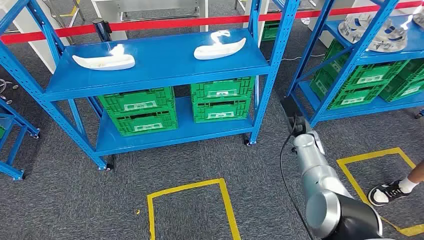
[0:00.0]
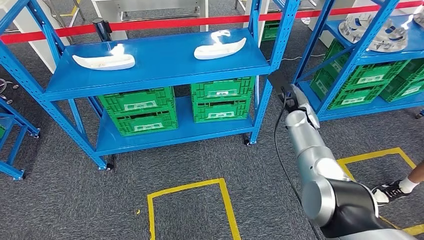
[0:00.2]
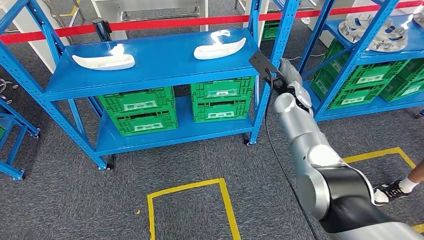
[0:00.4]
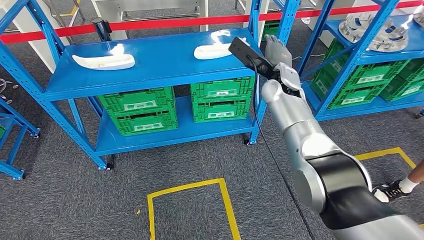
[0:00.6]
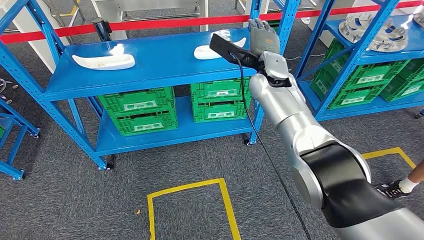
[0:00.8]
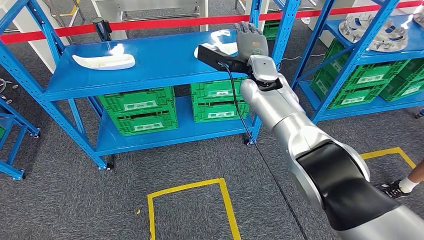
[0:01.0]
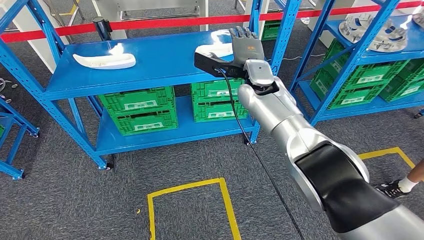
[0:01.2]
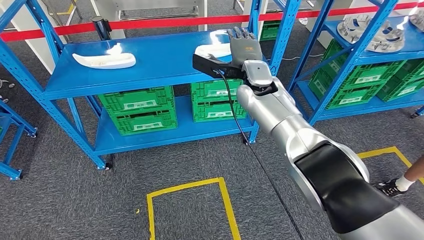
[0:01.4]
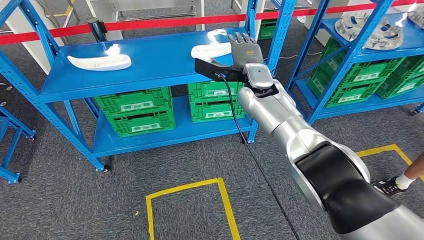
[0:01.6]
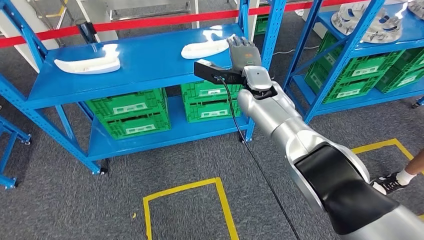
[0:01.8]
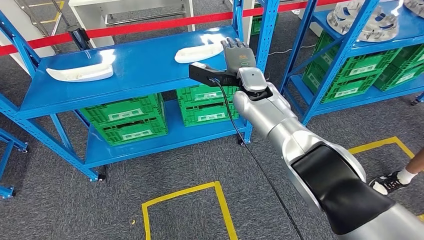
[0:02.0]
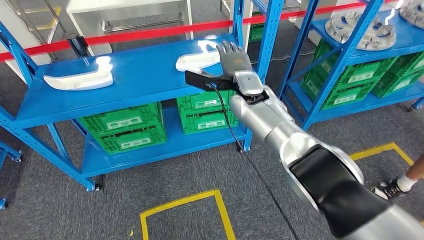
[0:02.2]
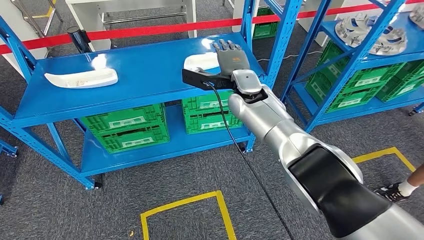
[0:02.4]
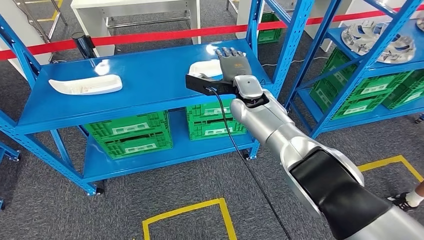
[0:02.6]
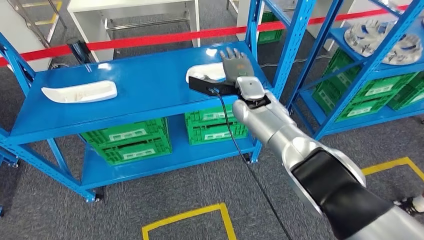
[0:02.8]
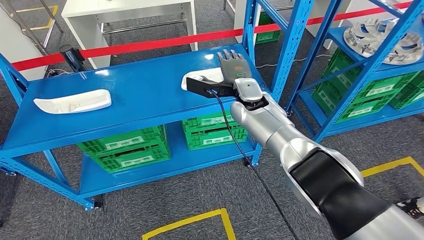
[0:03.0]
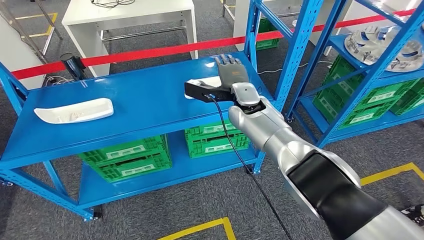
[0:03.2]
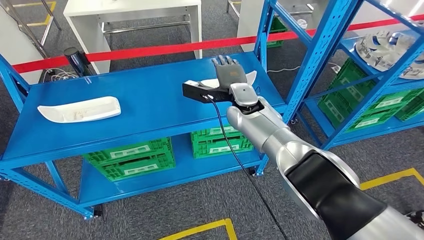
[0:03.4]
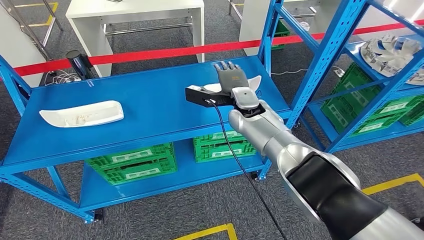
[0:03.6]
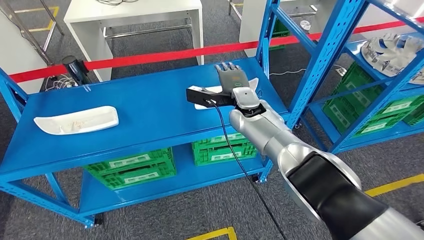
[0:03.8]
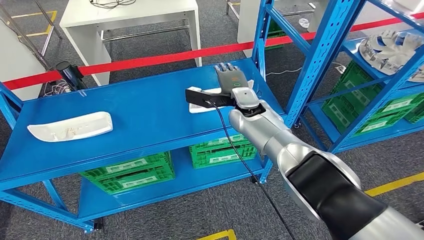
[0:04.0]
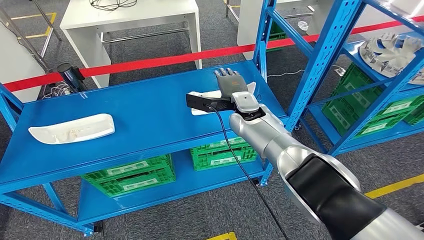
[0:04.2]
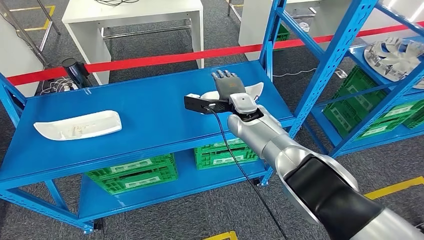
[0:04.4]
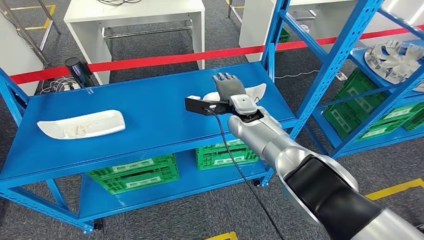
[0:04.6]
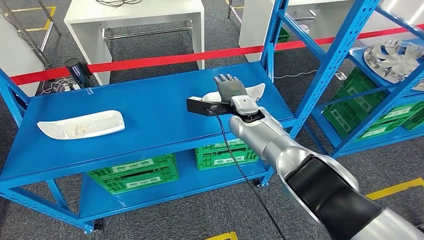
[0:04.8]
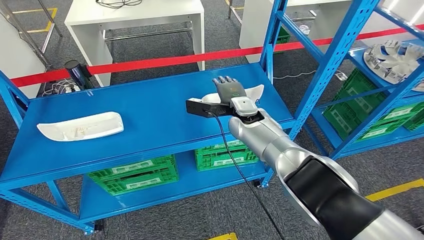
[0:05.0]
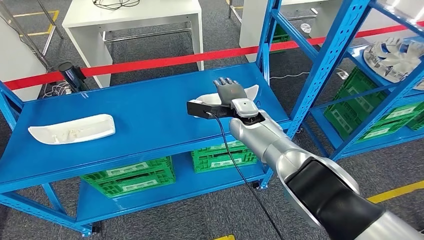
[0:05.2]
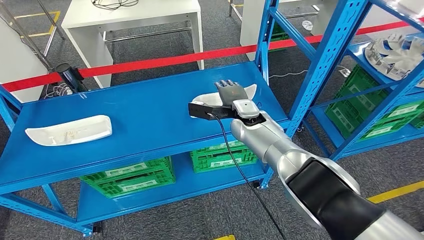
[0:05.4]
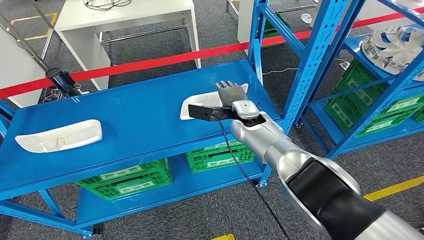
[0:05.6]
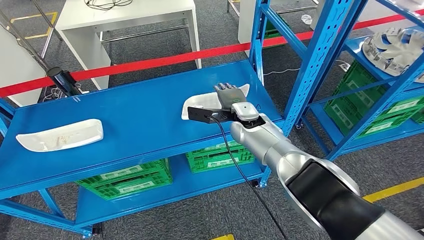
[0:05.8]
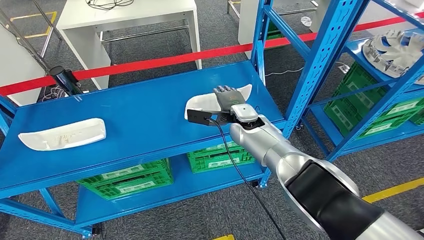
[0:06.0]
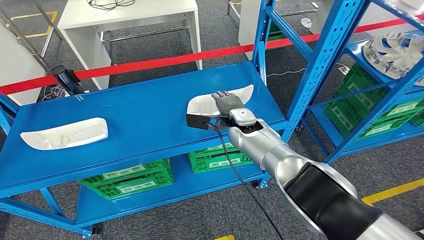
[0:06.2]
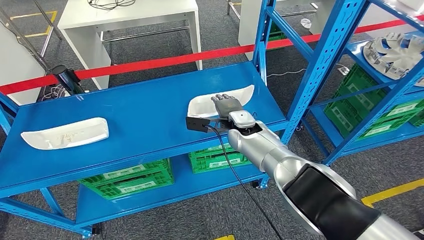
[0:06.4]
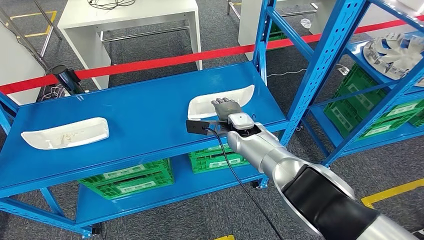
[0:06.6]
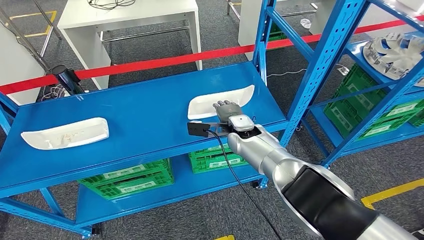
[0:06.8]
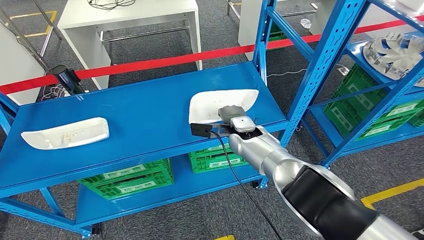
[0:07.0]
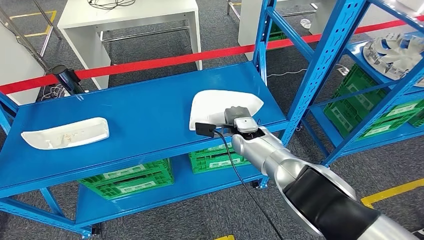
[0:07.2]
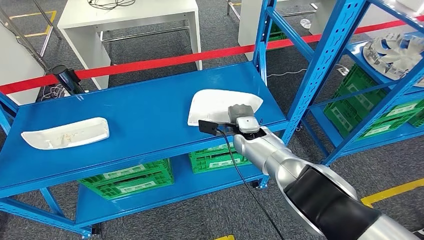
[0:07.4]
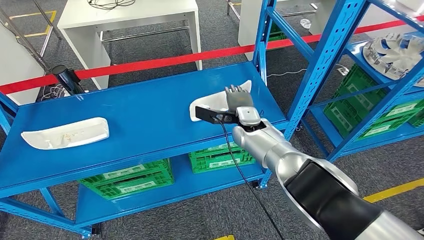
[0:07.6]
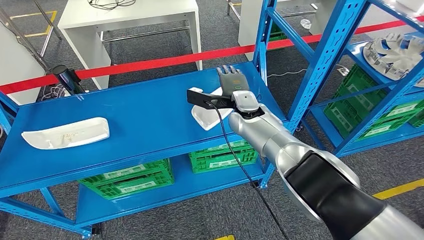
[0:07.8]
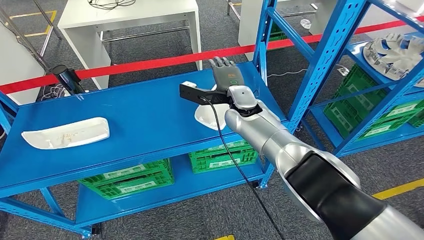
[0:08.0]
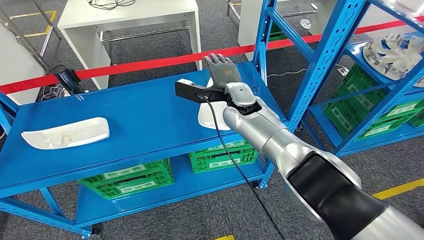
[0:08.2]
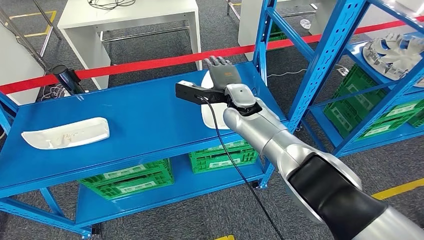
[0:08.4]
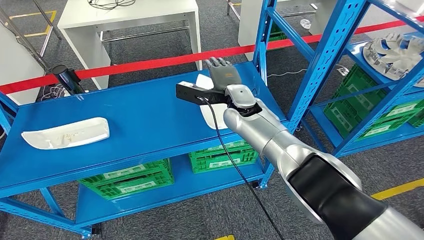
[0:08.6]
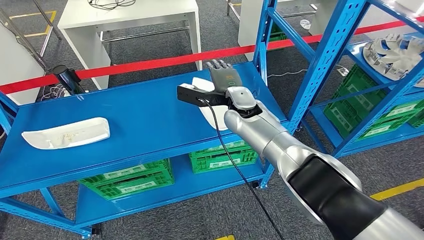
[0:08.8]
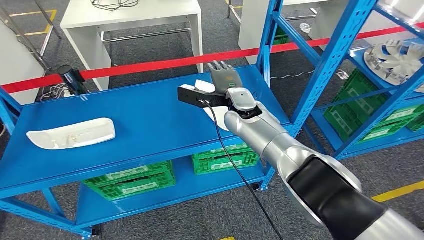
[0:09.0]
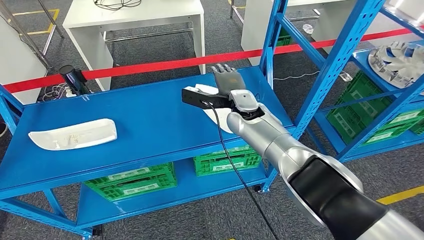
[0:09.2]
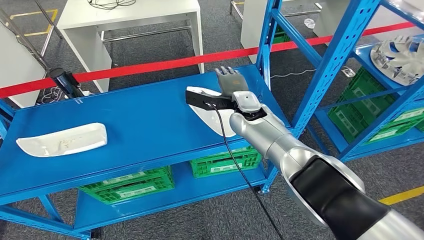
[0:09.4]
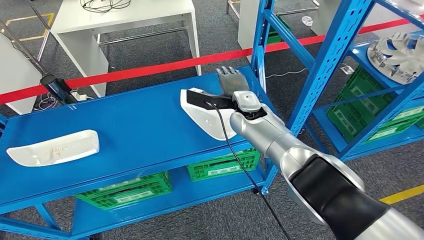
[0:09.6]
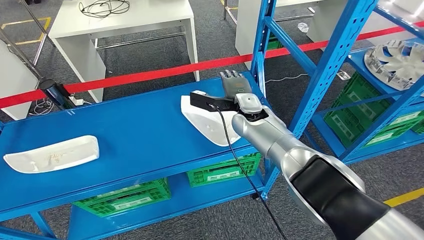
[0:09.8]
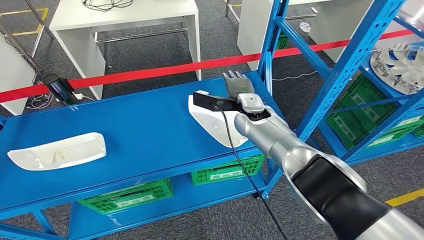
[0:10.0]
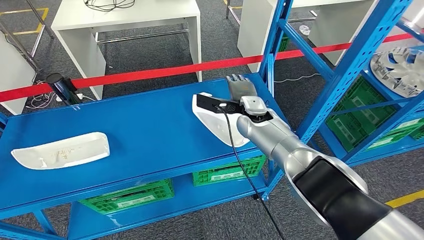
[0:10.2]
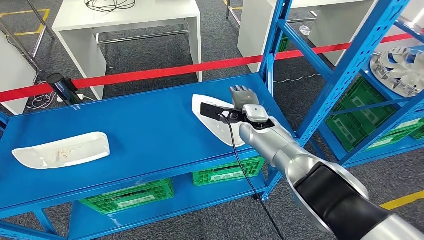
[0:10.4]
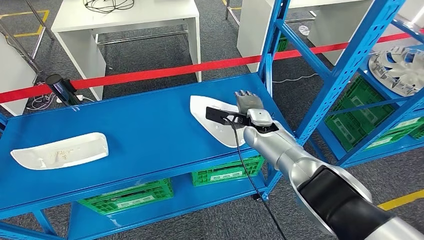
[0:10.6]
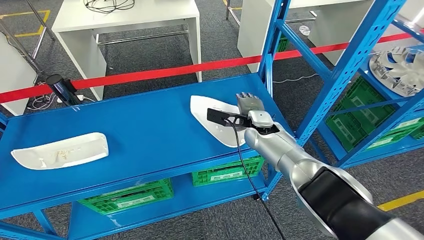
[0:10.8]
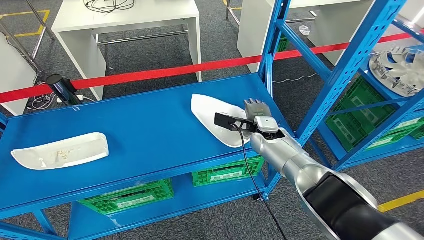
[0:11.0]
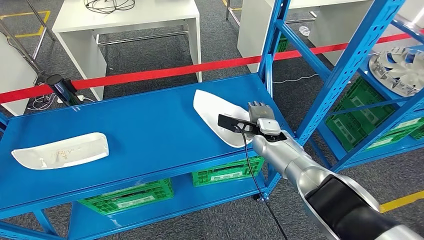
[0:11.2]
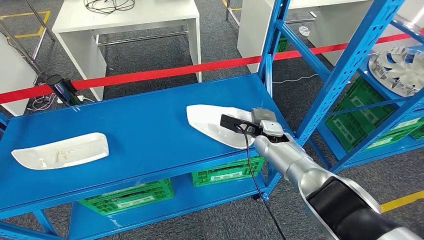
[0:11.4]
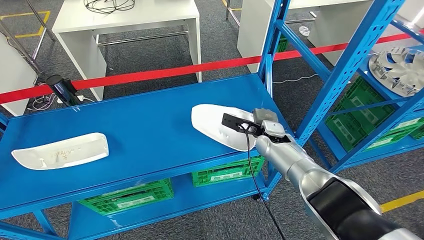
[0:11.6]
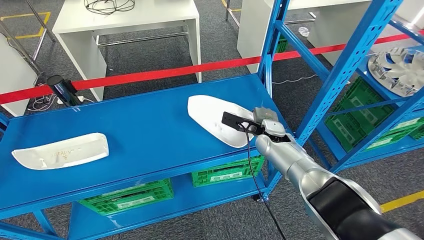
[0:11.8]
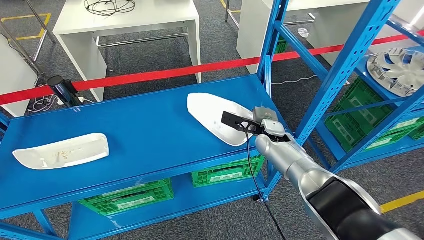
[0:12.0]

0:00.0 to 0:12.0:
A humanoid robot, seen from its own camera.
0:06.0 to 0:07.6: The hands make only small movements.

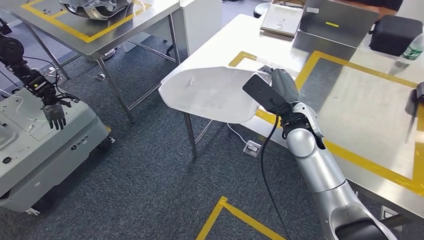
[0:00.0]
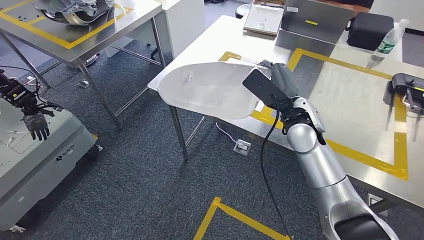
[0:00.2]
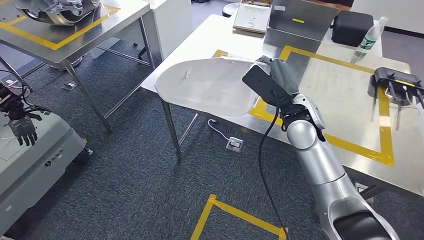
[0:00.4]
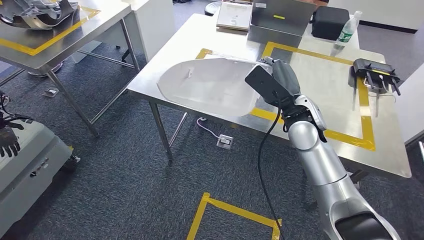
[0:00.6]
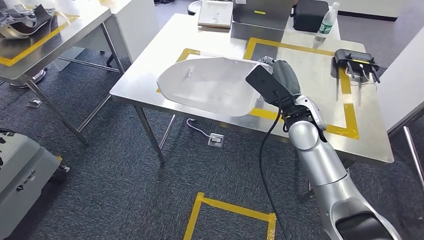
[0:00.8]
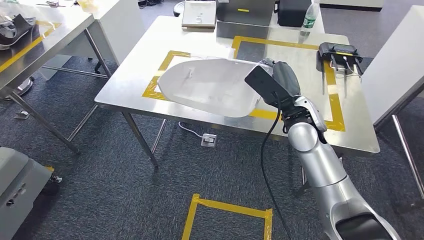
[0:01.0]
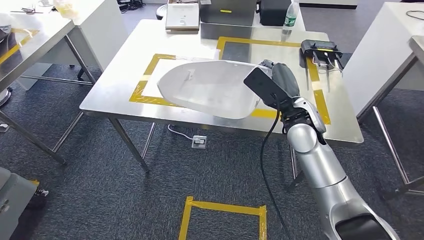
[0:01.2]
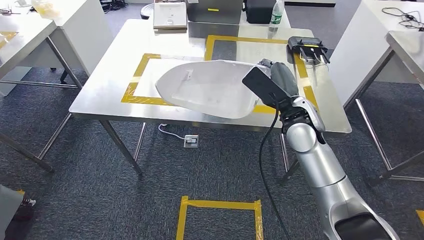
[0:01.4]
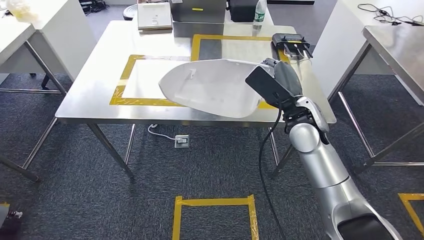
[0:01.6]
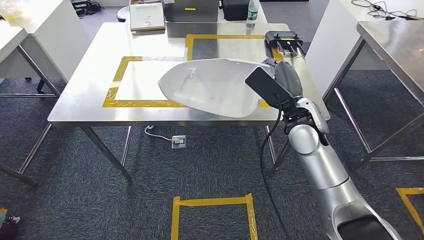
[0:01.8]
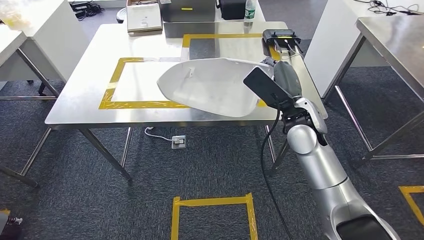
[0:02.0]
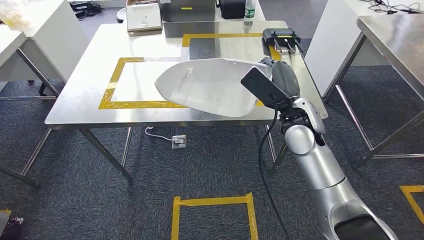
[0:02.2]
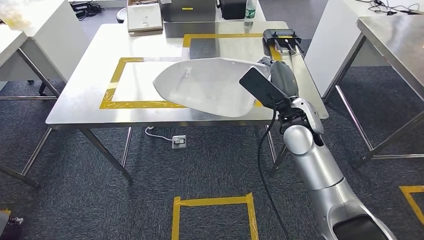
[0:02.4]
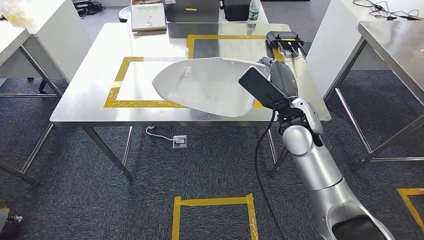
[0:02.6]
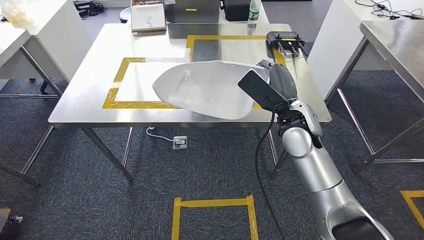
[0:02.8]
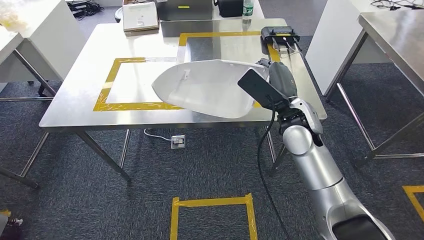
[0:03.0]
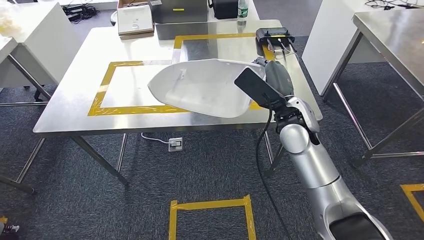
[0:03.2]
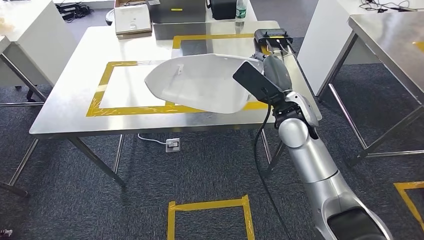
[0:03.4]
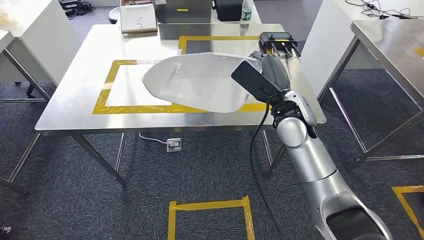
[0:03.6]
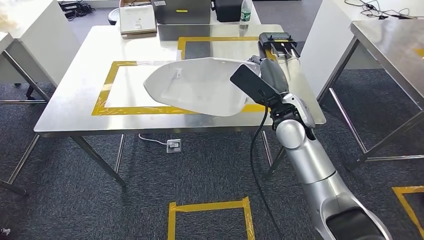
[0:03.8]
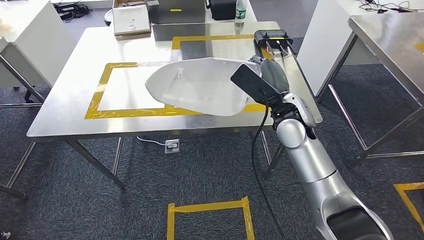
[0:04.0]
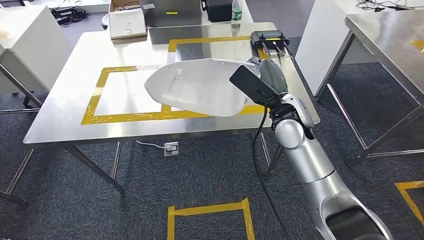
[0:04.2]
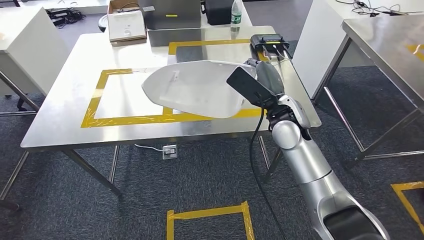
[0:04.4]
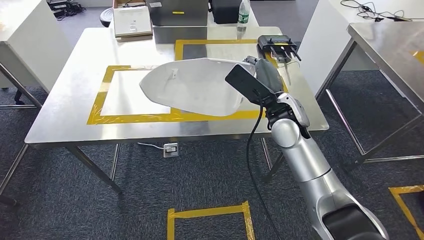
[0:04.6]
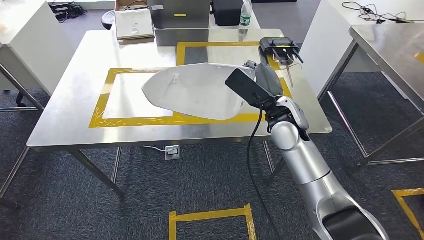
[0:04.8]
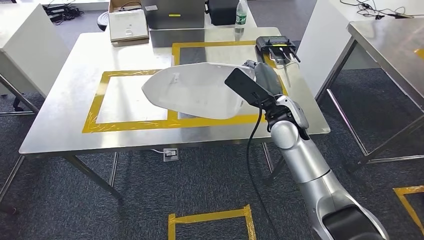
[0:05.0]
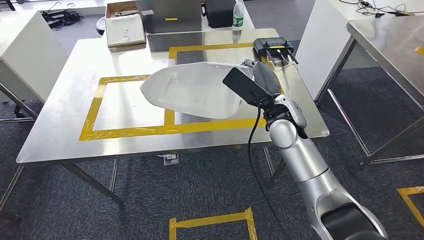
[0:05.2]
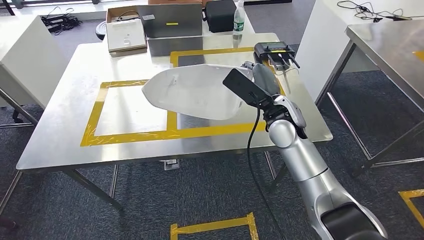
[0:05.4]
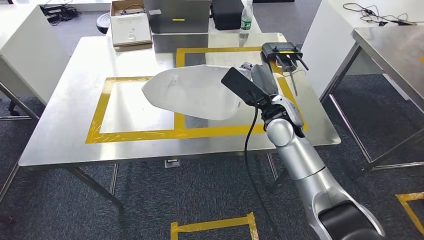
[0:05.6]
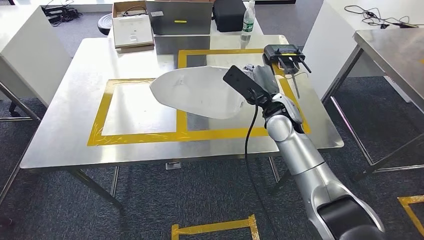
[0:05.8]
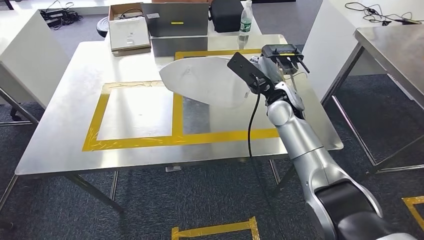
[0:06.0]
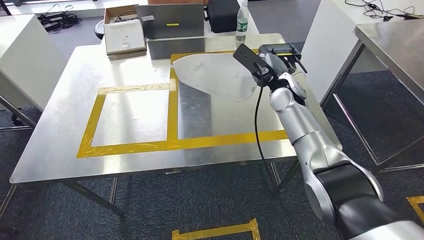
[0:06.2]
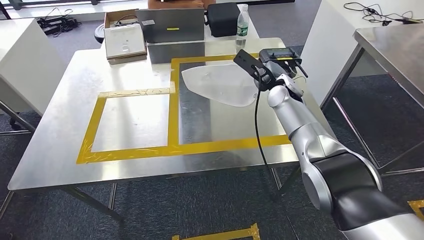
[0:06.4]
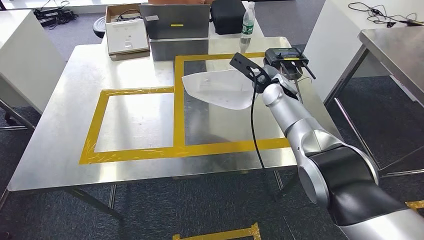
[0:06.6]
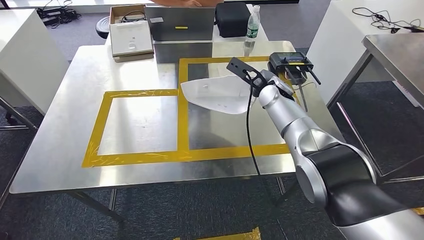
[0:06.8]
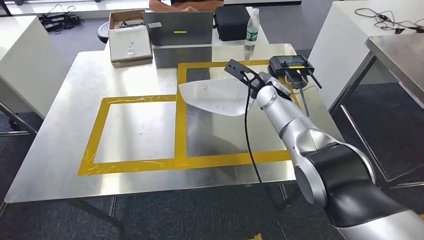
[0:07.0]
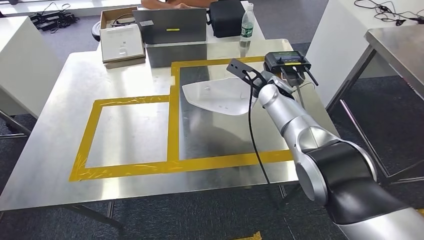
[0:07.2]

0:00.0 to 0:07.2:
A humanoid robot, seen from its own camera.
Step, 0:00.0 to 0:06.4: Move the small parts to the workbench.
